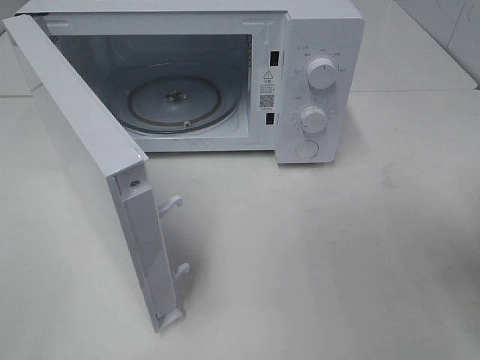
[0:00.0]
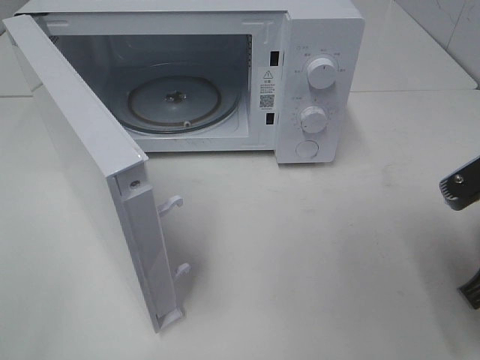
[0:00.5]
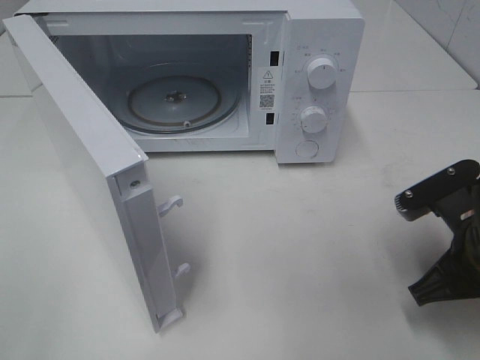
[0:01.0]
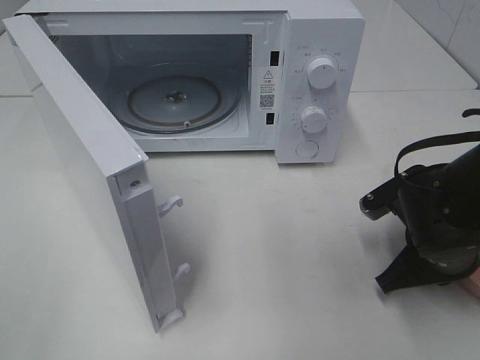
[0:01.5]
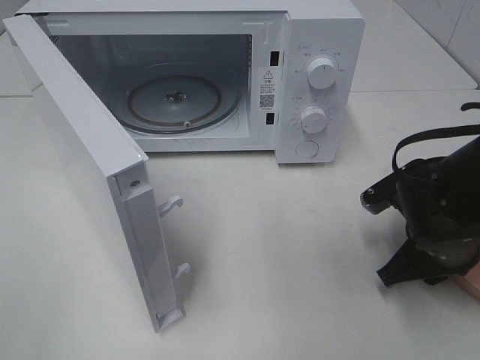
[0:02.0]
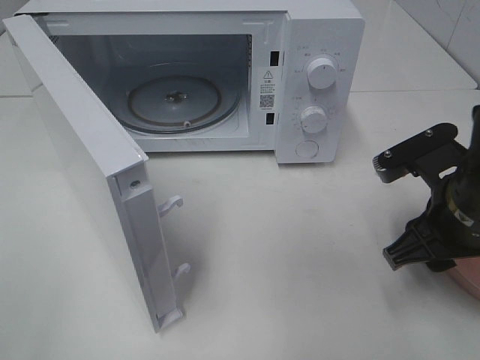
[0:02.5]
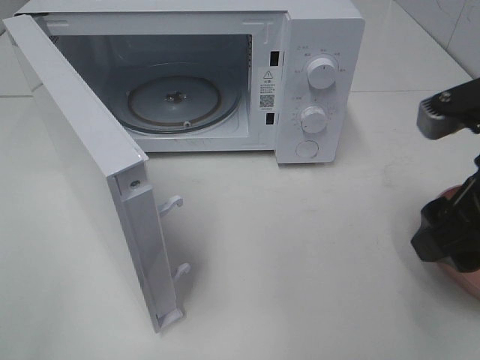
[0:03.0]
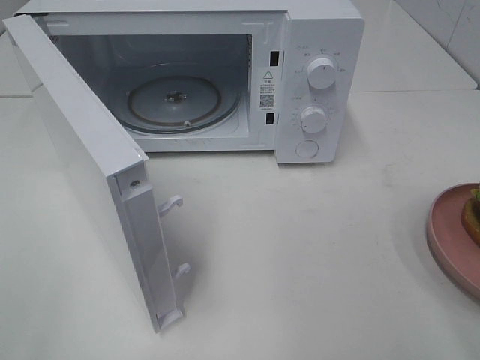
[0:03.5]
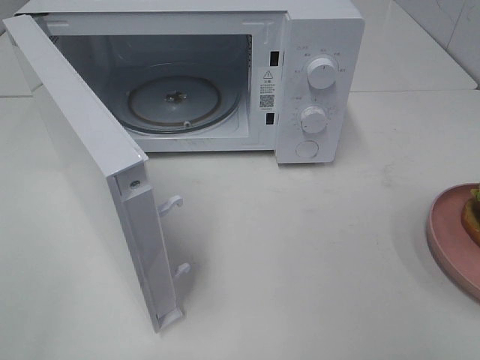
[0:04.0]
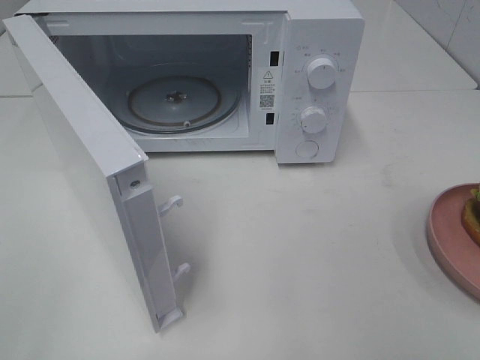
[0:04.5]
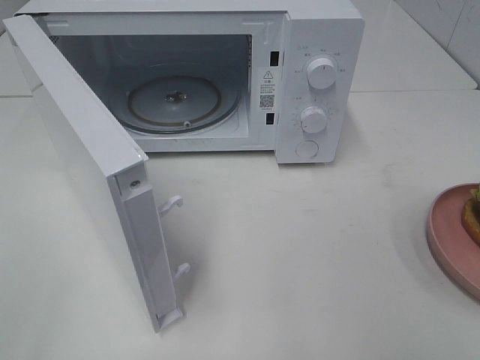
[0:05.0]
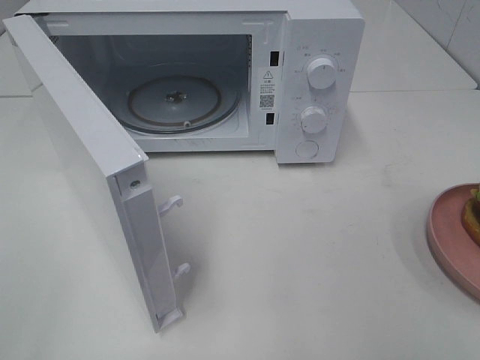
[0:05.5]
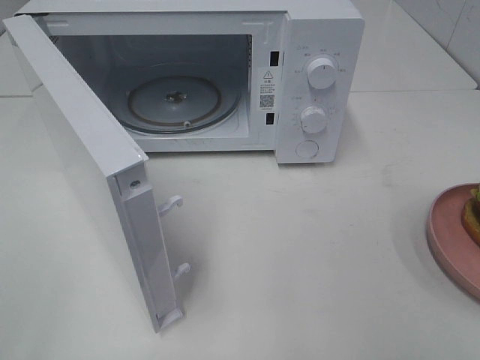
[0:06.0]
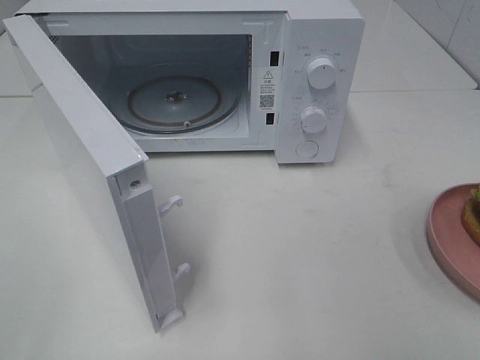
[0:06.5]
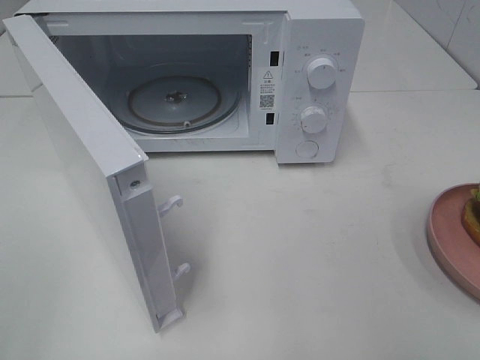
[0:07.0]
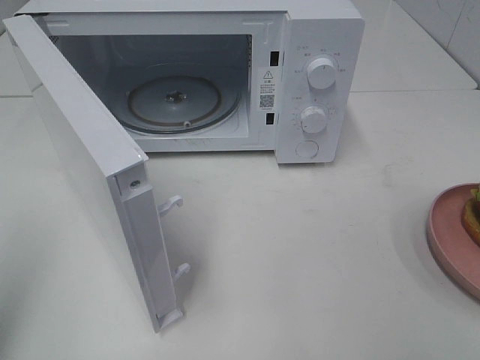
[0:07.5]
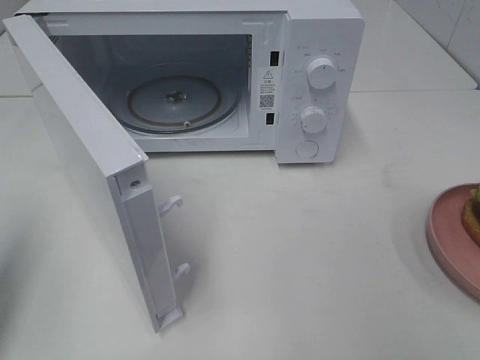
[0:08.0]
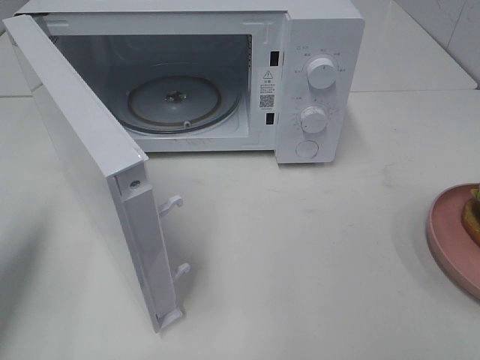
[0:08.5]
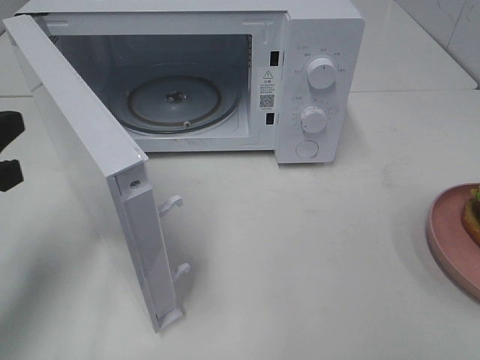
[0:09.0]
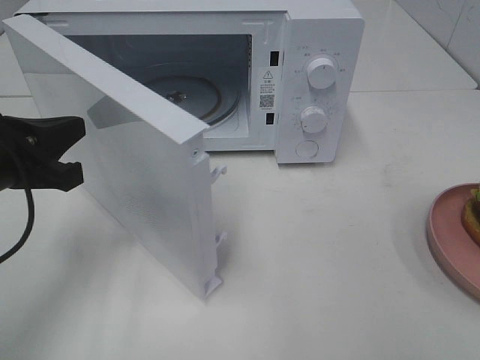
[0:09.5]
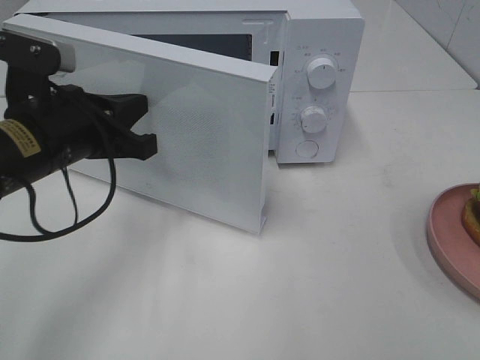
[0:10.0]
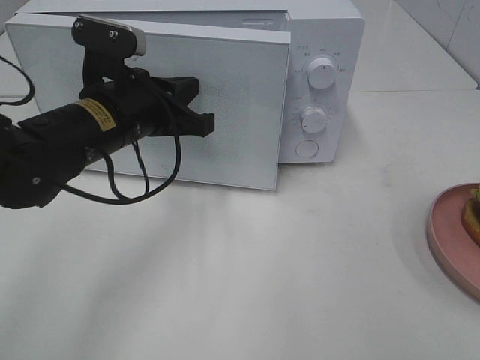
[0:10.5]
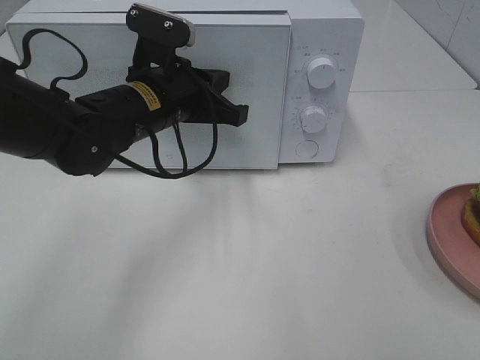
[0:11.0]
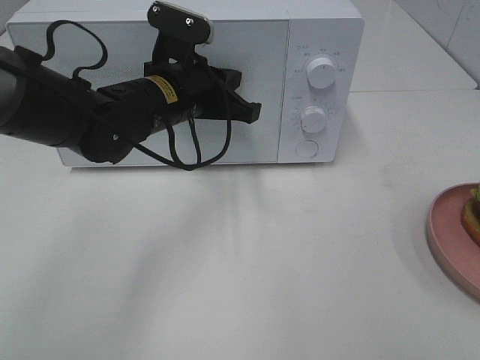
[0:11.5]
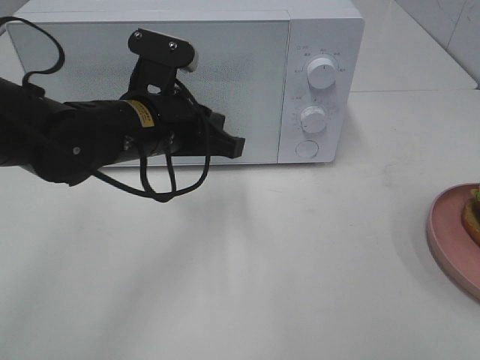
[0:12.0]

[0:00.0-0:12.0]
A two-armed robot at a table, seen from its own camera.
Task of the whole recording: Heat the burger.
Step, 0:00.0 to 0:02.0: Right hand: place the plate on the table.
Step, 0:02.5 to 0:11.5: Left hand: close the microwave door.
0:00.0 to 0:02.0: The right gripper heads downward, forward and to the left, covering some 15 cm, and opens its fingers.
0:02.0 to 0:04.0: The right gripper moves upward and backward, approximately 30 cm.
0:06.0 to 0:08.0: The left gripper moves forward, some 15 cm, and closes its fingers.
0:08.0 to 0:10.0: The left gripper travels to the right, forward and downward by some 20 cm.
0:10.0 to 0:12.0: The left gripper heads to the right, covering about 10 cm.

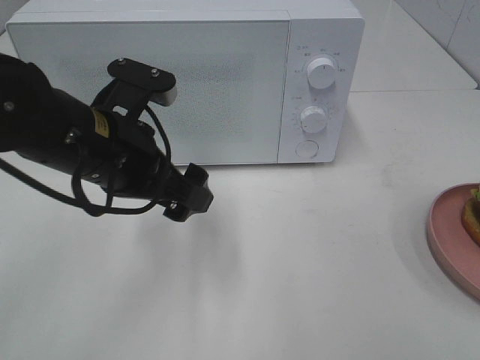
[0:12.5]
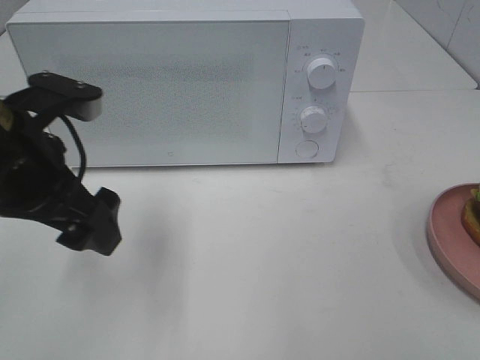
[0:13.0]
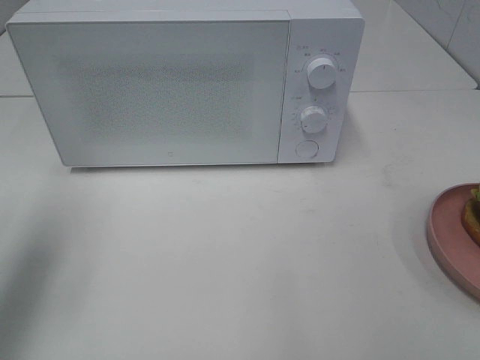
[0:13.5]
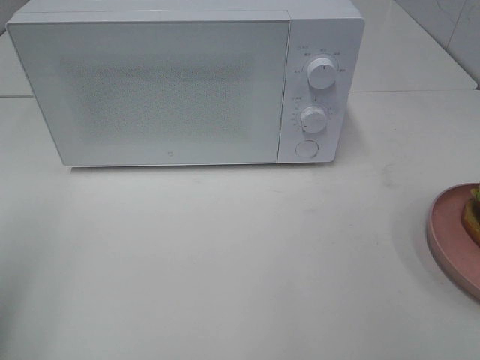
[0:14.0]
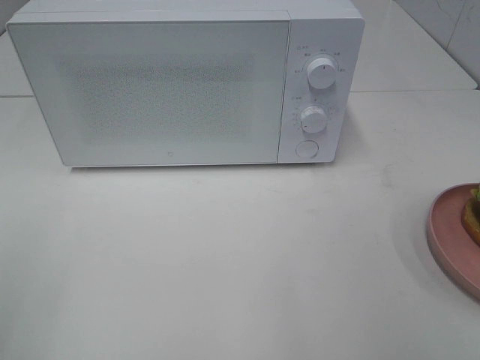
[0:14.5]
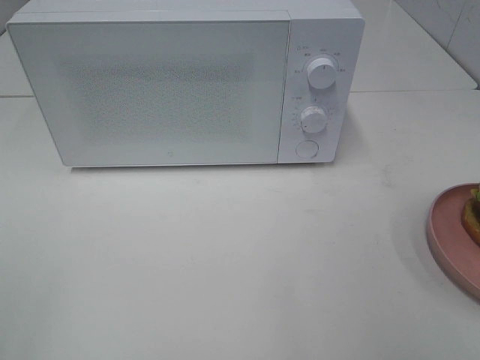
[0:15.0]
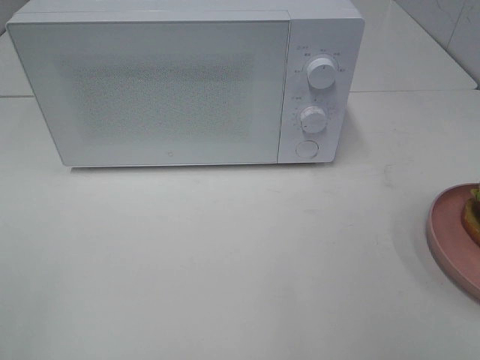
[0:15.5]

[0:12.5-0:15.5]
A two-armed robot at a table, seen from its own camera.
Task of the whole recording: Heat the burger.
0:12.5 to 0:14.0: The left gripper heads to the left, backward and upward, covering roughly 25 cm.

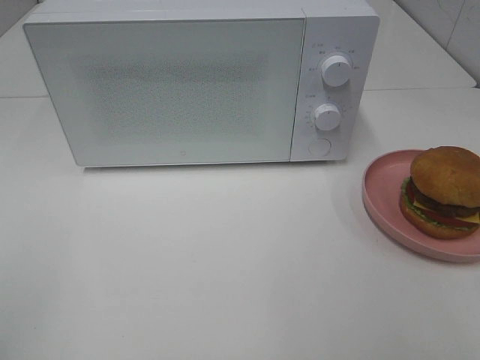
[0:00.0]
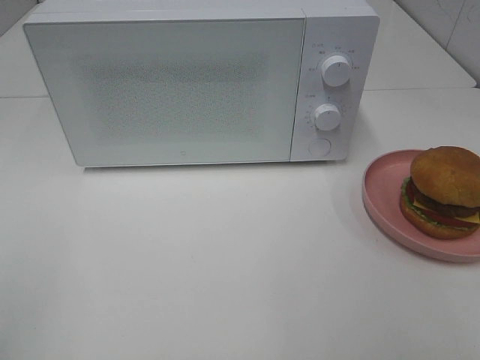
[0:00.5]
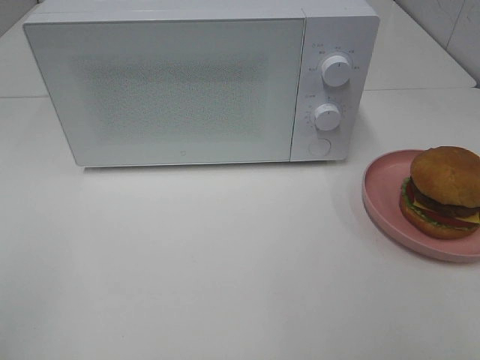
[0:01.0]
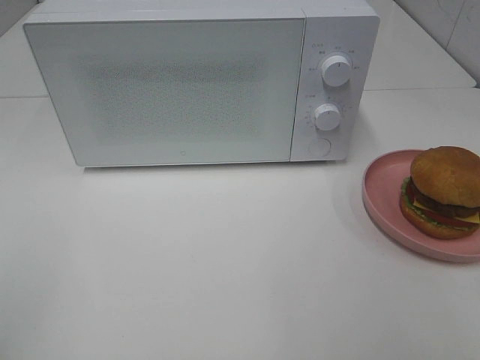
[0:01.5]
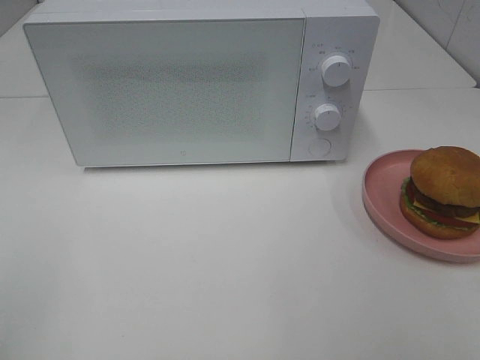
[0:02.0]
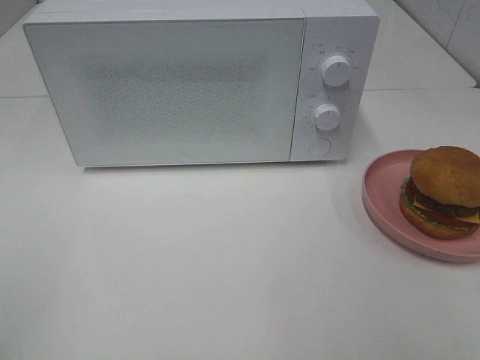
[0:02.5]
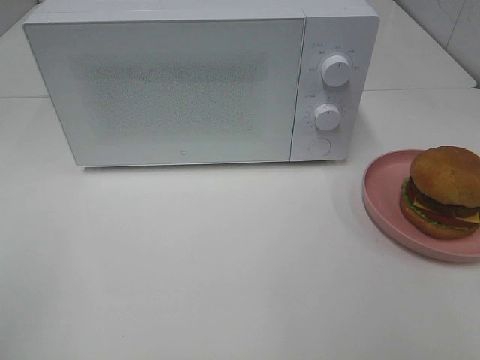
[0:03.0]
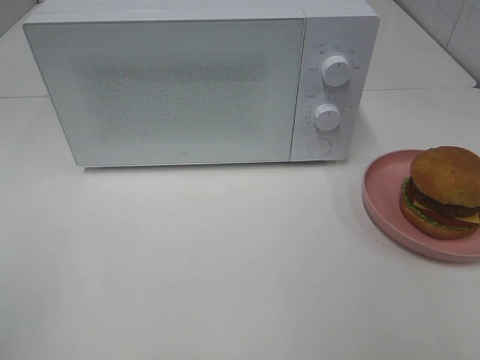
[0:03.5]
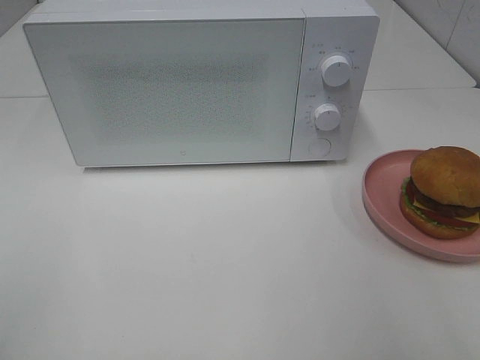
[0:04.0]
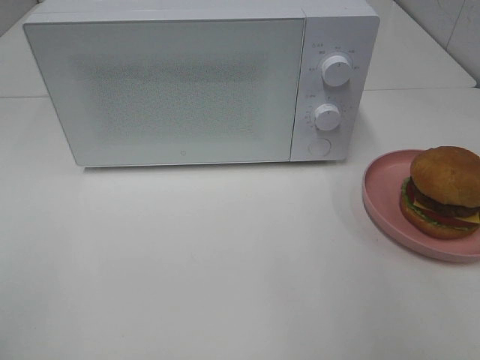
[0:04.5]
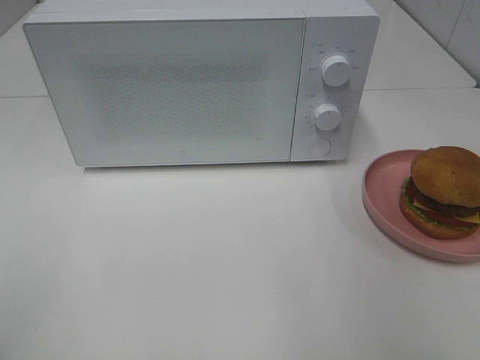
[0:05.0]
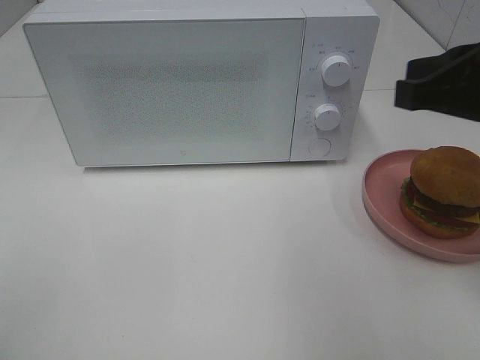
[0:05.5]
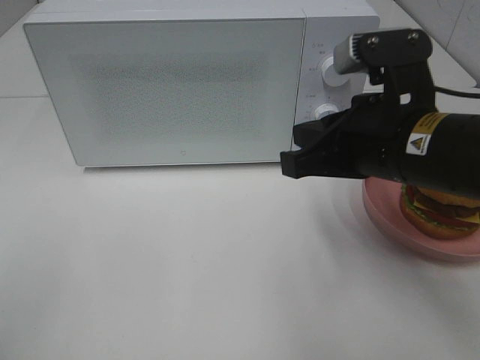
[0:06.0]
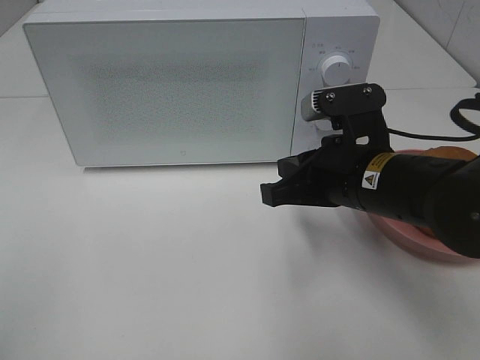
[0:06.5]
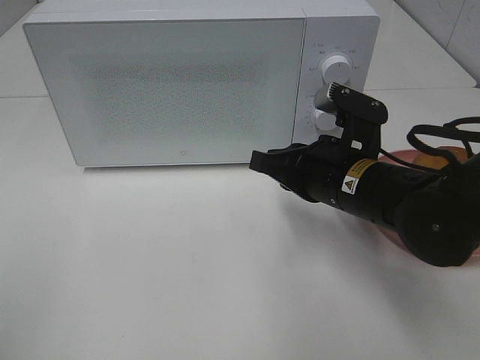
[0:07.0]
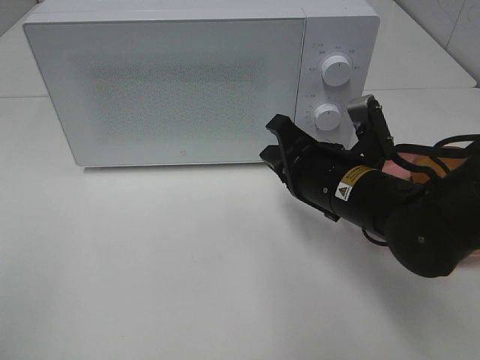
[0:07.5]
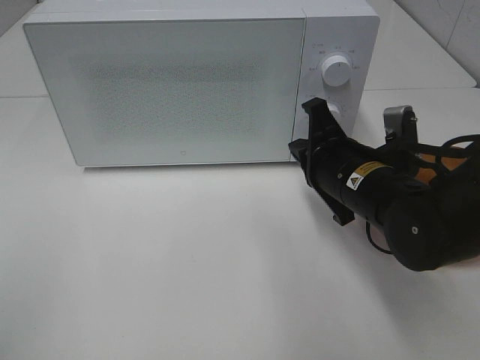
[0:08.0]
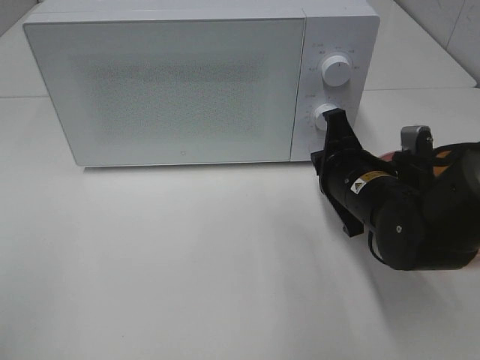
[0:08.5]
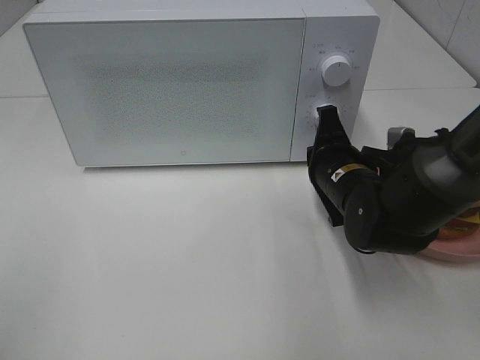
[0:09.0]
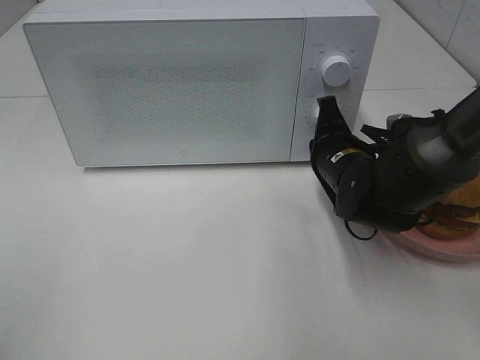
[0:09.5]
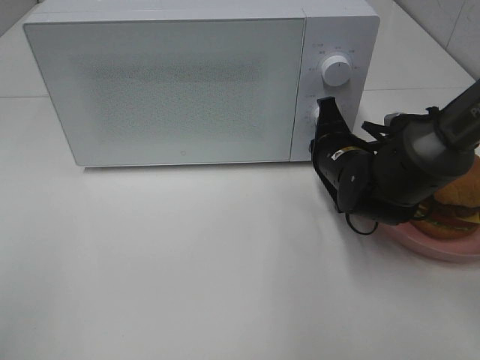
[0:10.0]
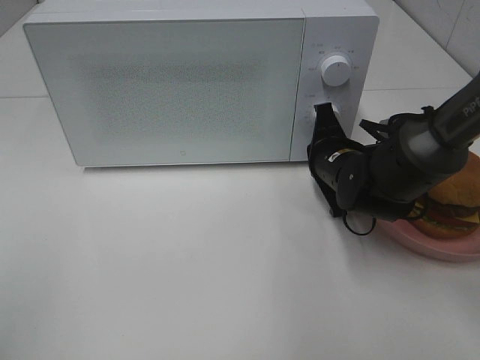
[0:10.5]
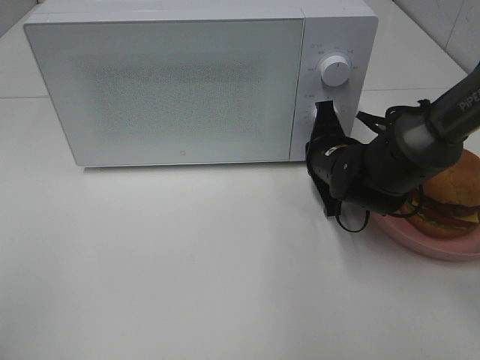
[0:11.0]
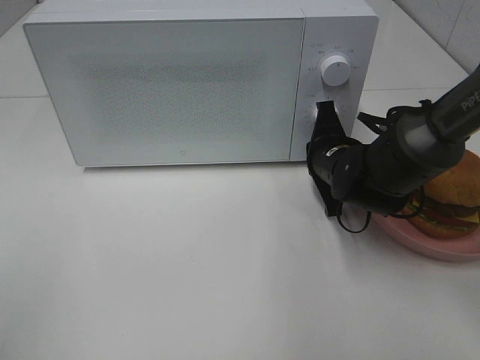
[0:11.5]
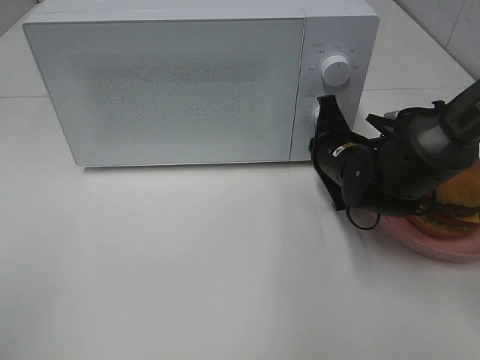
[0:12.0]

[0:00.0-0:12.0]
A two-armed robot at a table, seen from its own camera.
Task of the whole recording: Heat the burger.
0:00.0 to 0:02.0: Both grippers stay about where they are.
0:04.0 to 0:06.0: The right gripper heads to the left, forward and downward, covering roughly 20 cm, and closes.
0:06.0 to 0:08.0: The right gripper is displaced downward by about 10 cm.
0:08.0 to 0:10.0: The right gripper shifts some 5 cm forward.
0:10.0 to 0:12.0: The grippers stay close to where they were, moving slightly.
